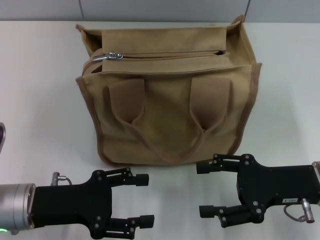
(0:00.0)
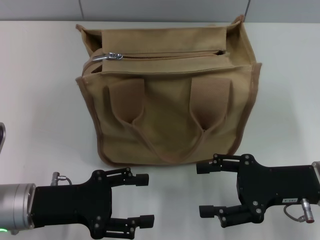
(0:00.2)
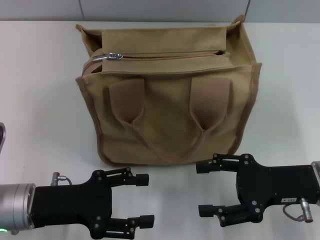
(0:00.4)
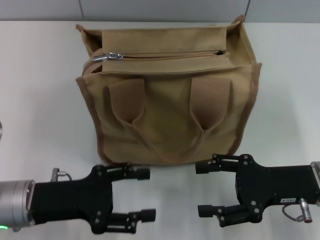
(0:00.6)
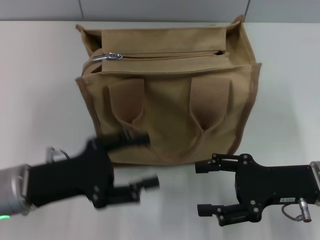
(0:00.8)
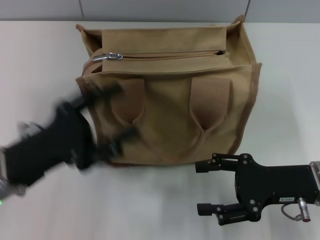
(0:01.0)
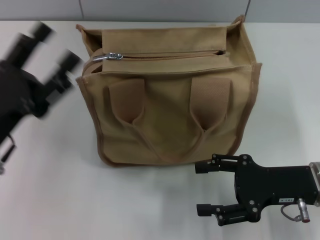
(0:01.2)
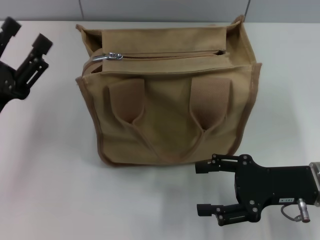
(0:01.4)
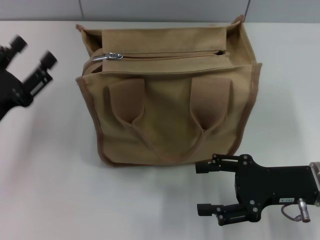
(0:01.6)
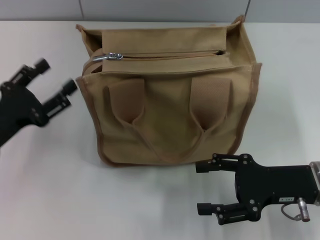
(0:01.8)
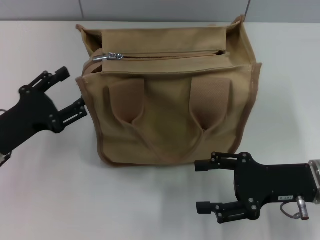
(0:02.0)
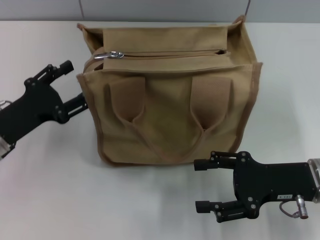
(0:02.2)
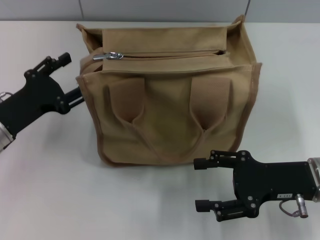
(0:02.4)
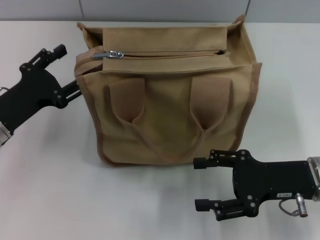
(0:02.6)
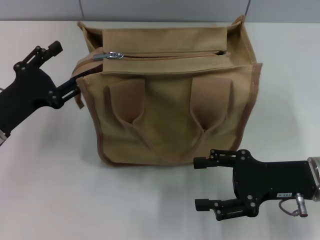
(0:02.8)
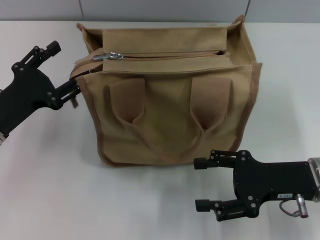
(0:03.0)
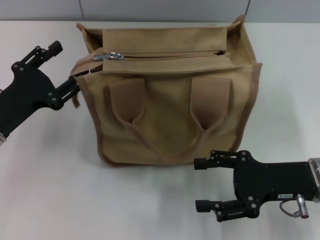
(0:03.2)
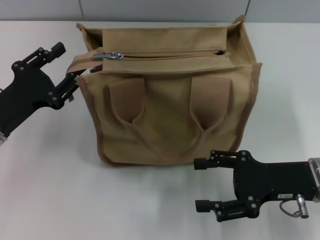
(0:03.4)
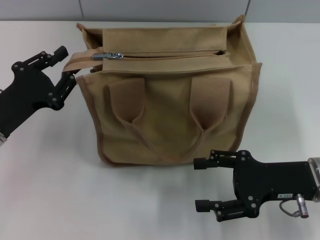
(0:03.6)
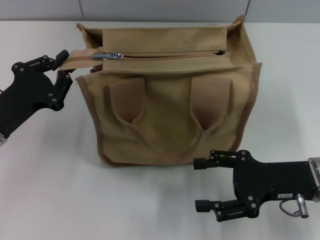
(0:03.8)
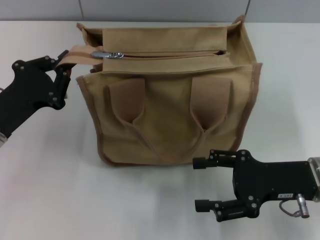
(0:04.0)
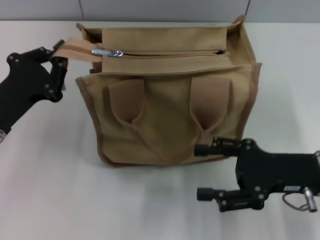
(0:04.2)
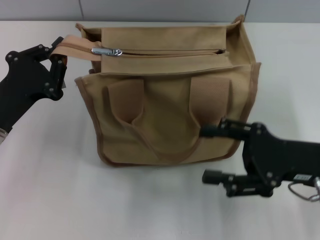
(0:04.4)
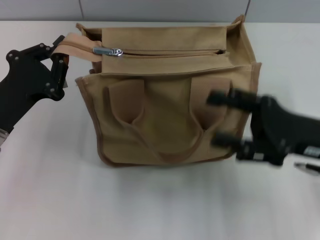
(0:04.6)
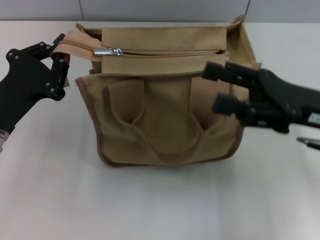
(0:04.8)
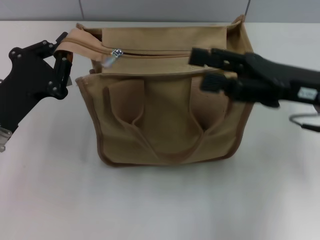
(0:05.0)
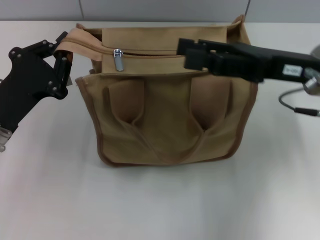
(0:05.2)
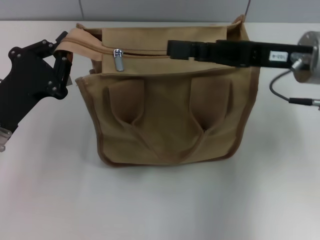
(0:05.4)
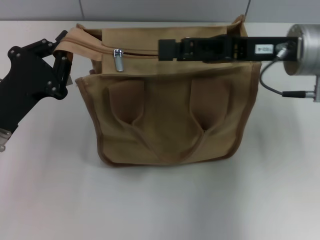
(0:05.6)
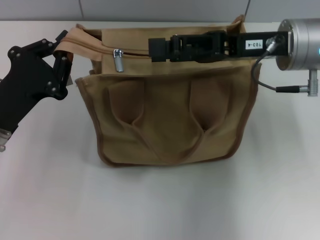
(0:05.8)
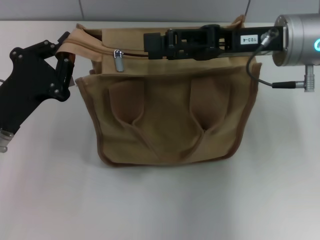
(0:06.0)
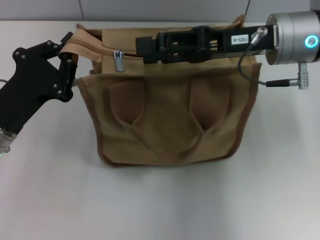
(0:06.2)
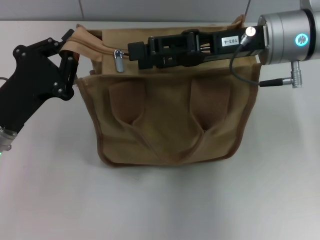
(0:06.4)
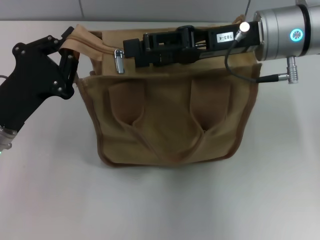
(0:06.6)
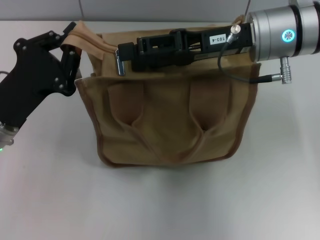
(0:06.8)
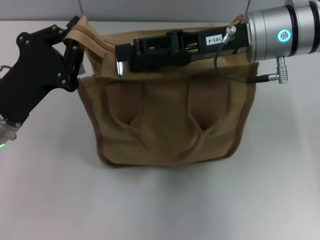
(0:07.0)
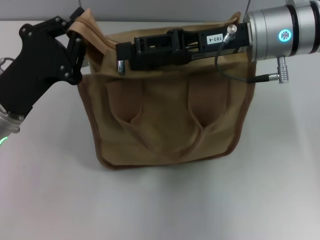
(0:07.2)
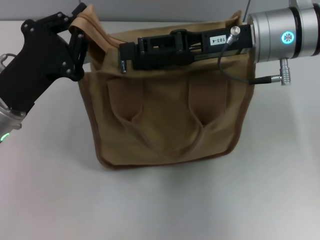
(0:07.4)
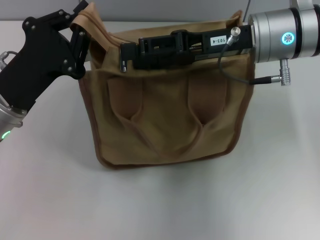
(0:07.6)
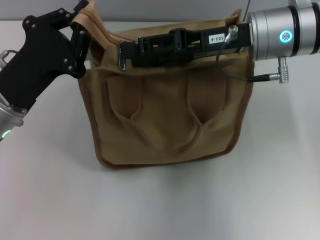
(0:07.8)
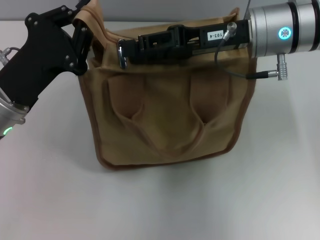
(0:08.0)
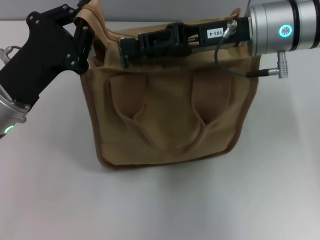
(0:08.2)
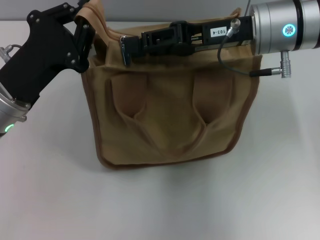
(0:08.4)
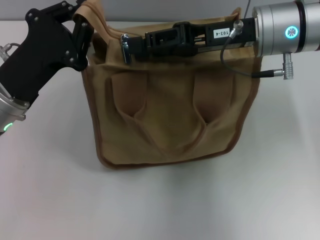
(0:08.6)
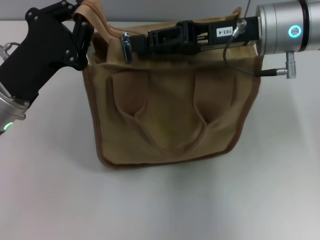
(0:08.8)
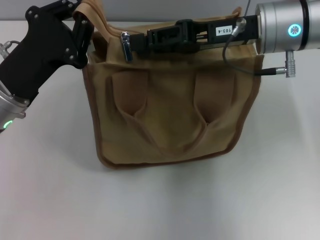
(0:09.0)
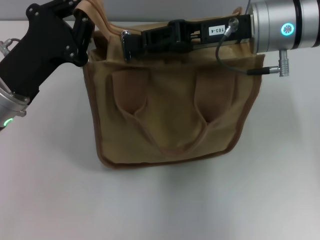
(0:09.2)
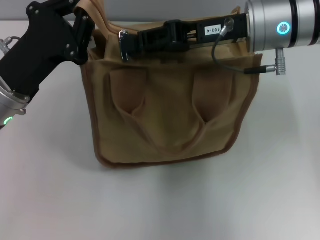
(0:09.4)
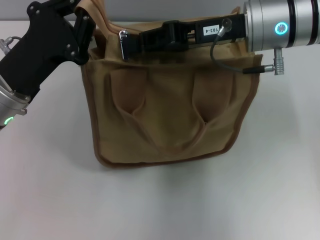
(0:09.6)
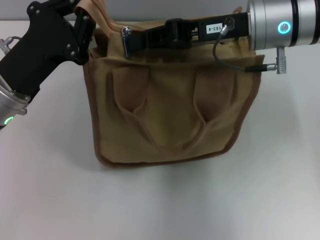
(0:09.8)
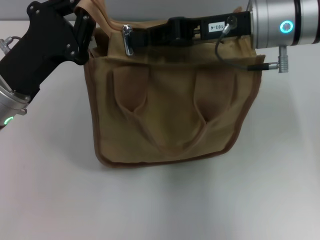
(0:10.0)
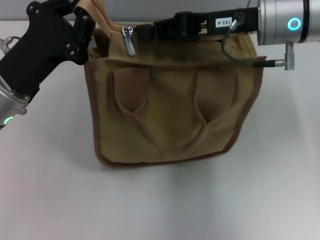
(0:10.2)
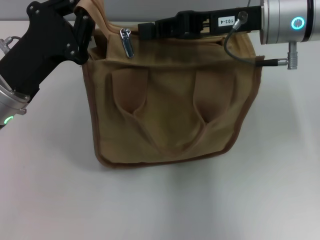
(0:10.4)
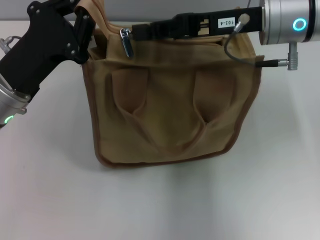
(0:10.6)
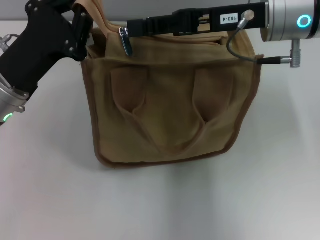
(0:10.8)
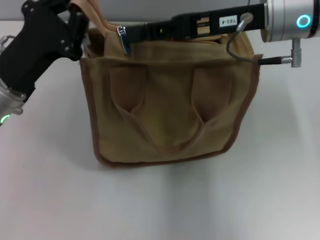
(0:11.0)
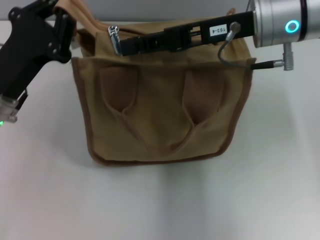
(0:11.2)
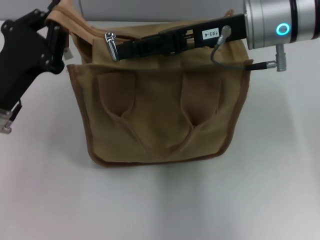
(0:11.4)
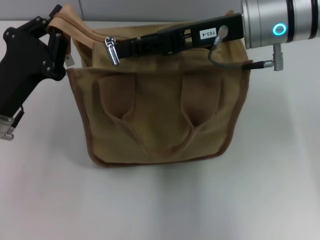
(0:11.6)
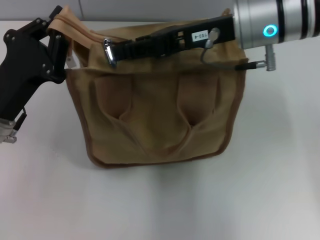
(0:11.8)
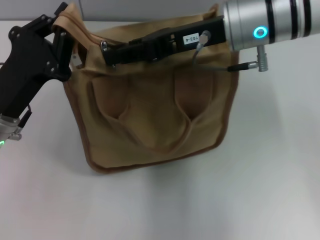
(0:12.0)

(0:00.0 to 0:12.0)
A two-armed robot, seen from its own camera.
0:00.0 - 0:01.6: The left gripper goes some 5 cm to the left.
0:01.6 - 0:03.0: The grippers make only small movements.
0:03.0 - 0:04.4: The left gripper closes.
0:04.4 - 0:06.0: The right gripper heads forward, upward and to the left, covering approximately 15 cm.
0:07.6 - 0:09.0: The right gripper closes.
0:09.0 - 0:10.4: The right gripper closes up.
0:10.4 - 0:12.0: The right gripper opens its fingers.

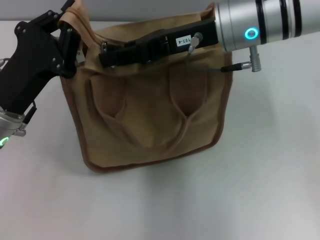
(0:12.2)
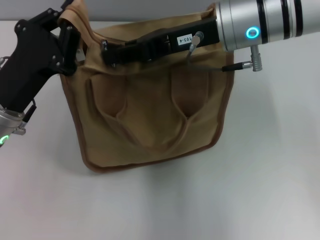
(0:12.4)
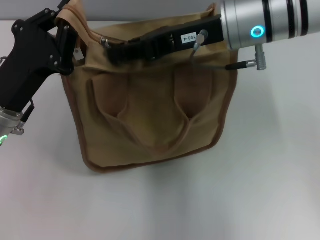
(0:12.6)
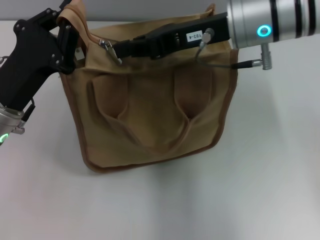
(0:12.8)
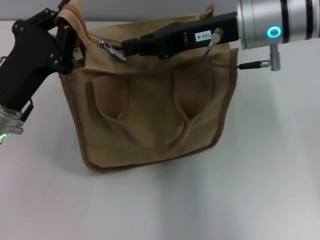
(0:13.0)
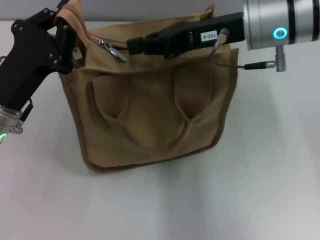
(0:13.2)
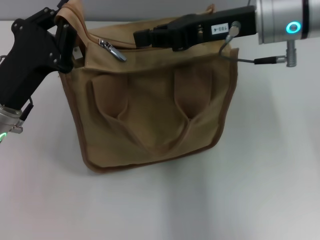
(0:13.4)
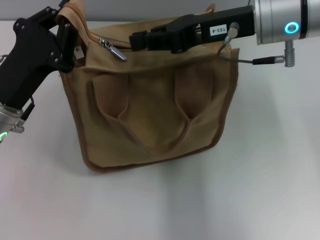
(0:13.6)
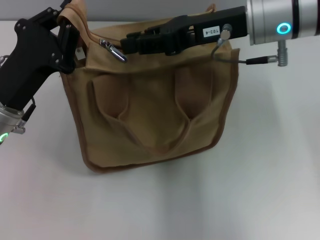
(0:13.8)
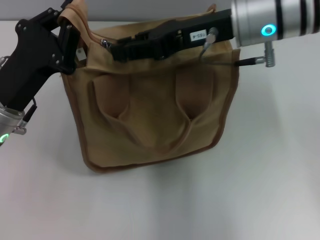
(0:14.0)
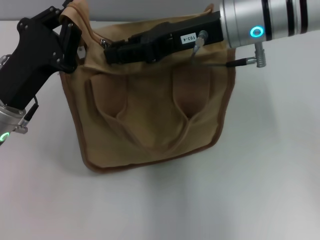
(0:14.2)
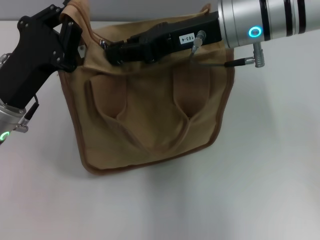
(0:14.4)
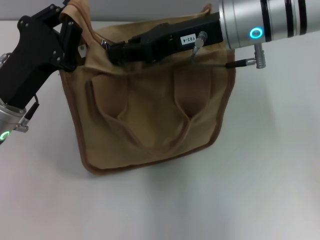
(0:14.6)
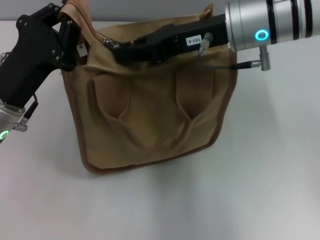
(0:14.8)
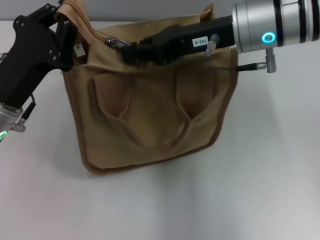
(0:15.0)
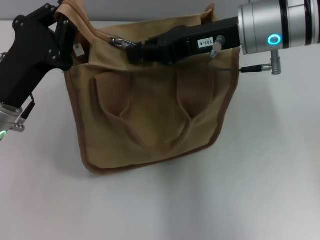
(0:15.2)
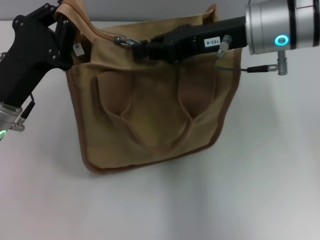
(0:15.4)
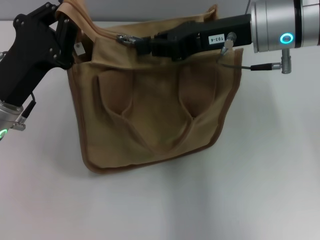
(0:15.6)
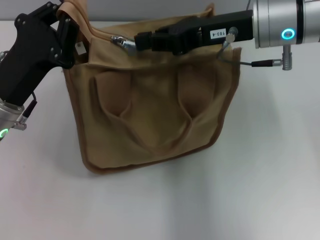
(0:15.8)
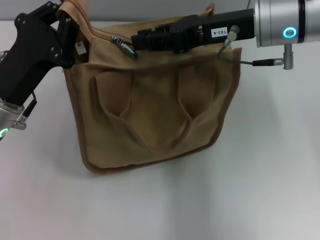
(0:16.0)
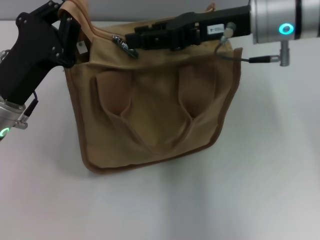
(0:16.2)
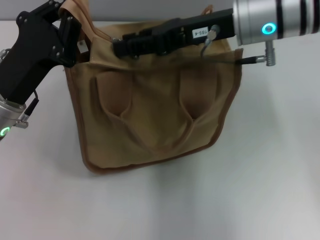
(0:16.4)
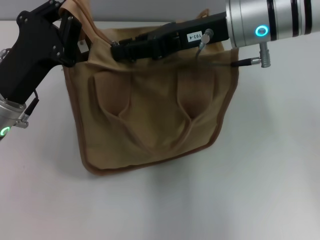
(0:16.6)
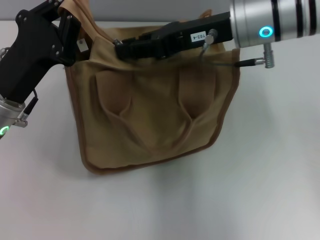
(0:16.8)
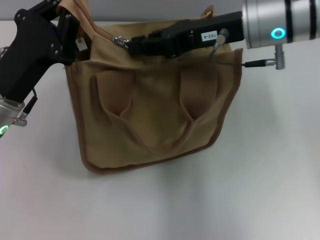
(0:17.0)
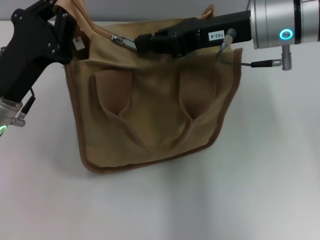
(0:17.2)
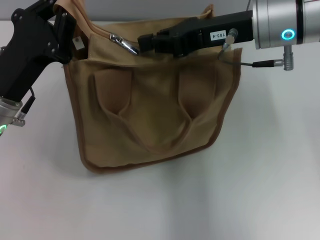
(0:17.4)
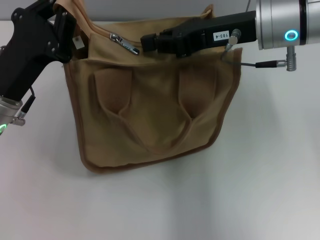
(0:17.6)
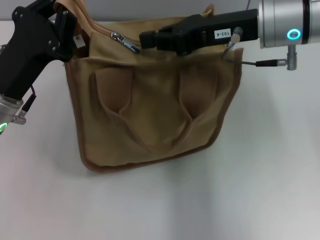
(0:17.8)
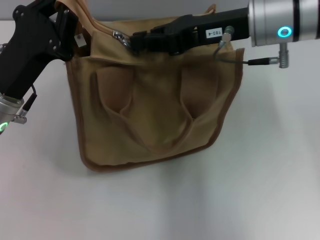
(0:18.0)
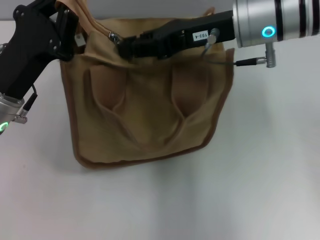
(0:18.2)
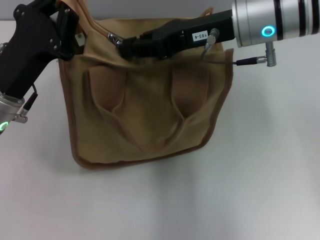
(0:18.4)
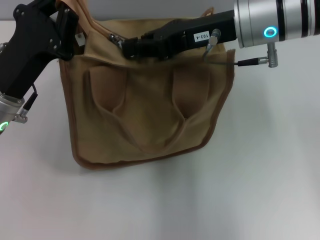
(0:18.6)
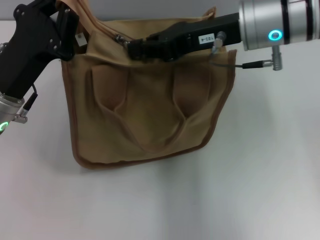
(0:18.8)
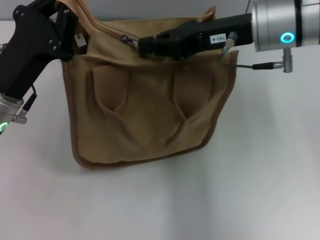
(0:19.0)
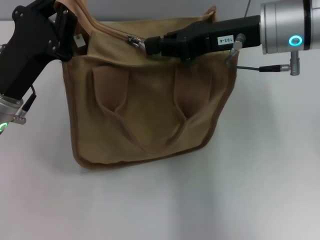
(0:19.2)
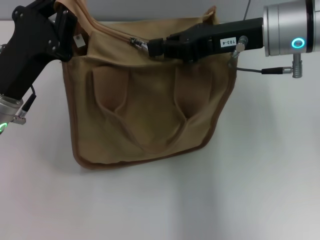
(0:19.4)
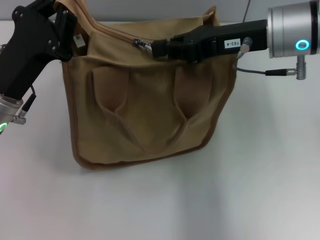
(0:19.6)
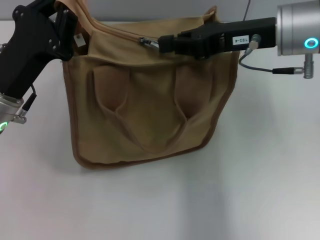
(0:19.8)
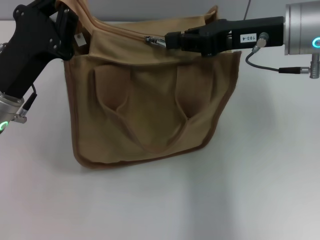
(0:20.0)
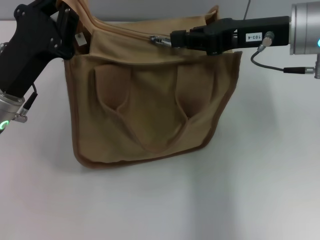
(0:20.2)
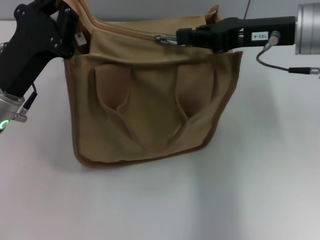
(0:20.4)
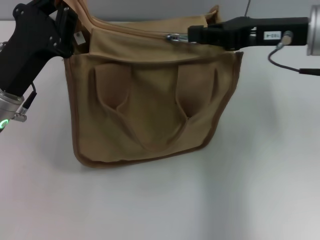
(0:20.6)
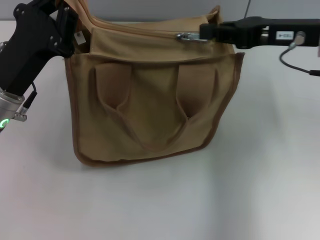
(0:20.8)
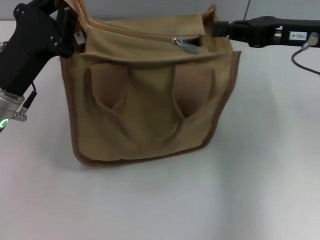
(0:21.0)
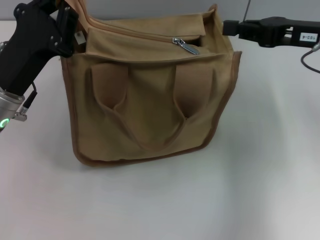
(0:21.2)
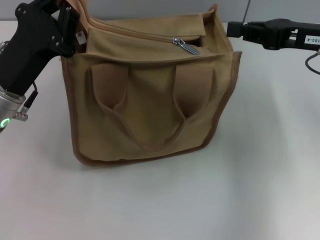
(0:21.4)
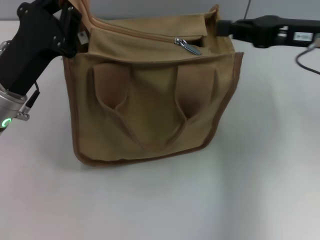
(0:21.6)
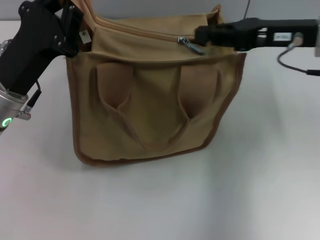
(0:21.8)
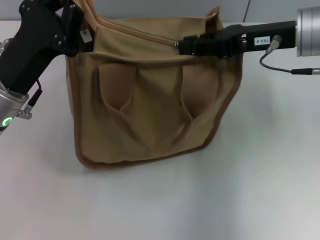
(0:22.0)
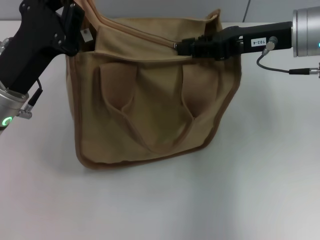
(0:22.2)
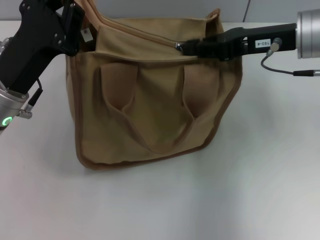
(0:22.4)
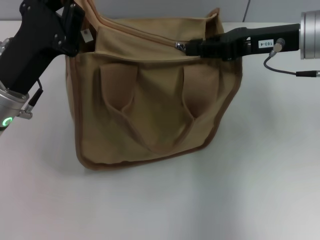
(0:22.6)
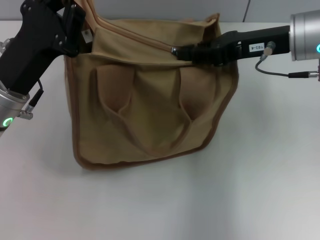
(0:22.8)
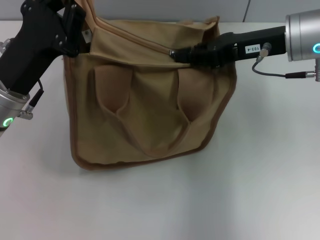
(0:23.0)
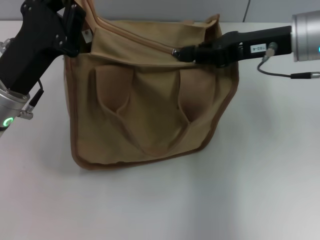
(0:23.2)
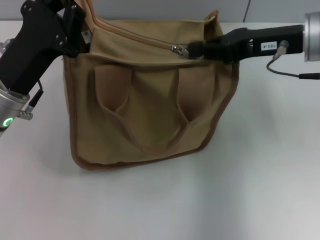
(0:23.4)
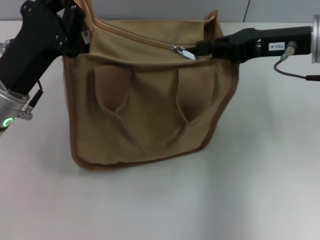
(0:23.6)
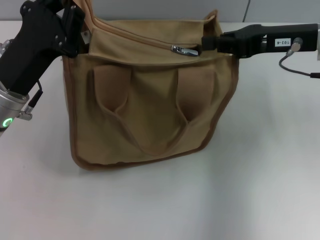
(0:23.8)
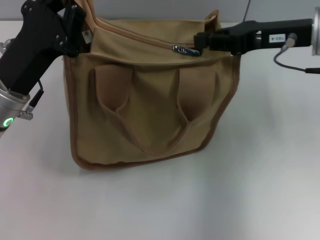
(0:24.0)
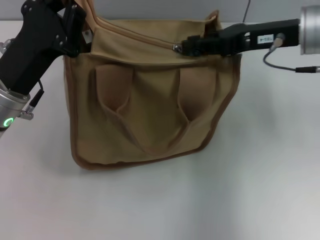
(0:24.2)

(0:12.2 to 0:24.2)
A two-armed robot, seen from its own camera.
0:12.2 - 0:15.2: There are only small adjustments of the grippers.
0:15.2 - 0:16.6: The right gripper opens up.
0:16.6 - 0:18.2: The grippers stay close to where they were, moving slightly.
0:18.2 - 0:19.8: The right gripper shifts by approximately 5 cm.
0:19.8 - 0:21.2: The right gripper travels to the right by approximately 10 cm.
0:21.2 - 0:22.6: The right gripper ends up some 5 cm from where it was.
0:22.6 - 0:24.2: The grippers move only a little.
